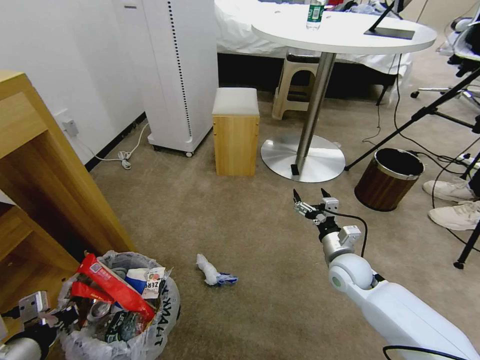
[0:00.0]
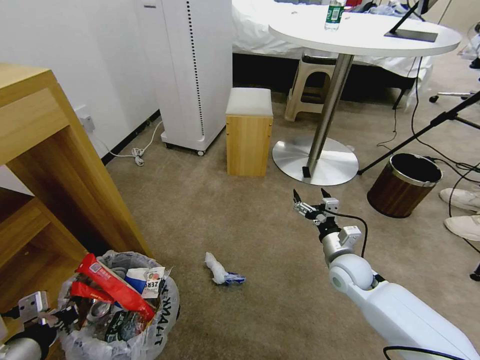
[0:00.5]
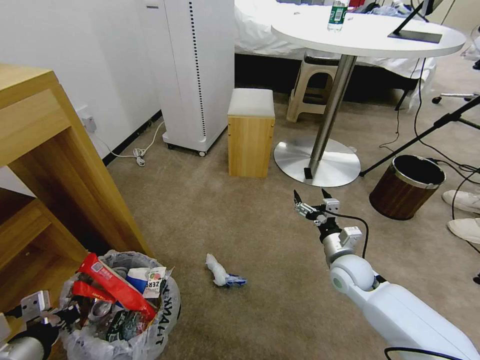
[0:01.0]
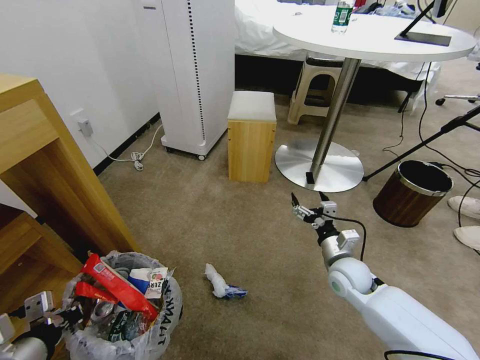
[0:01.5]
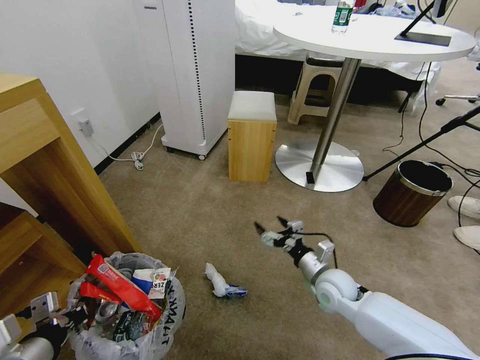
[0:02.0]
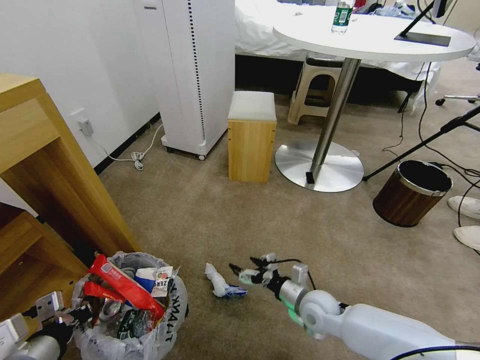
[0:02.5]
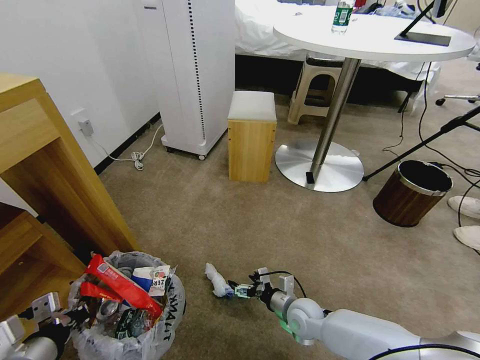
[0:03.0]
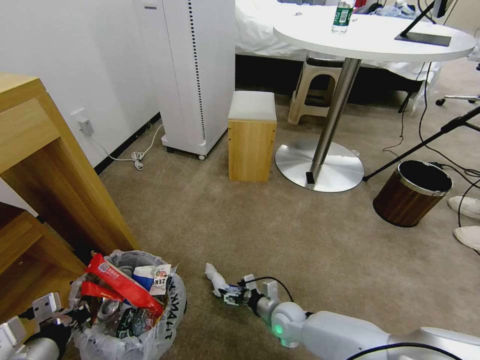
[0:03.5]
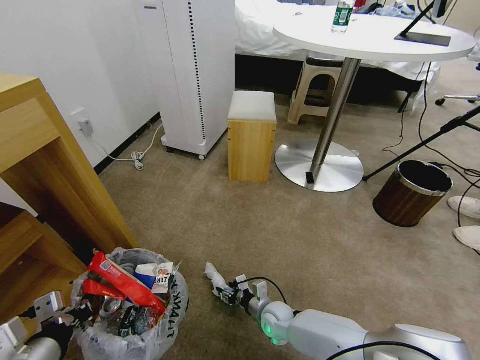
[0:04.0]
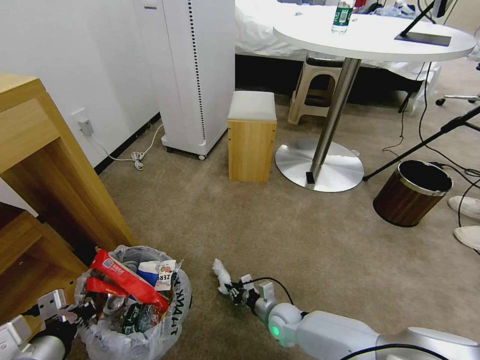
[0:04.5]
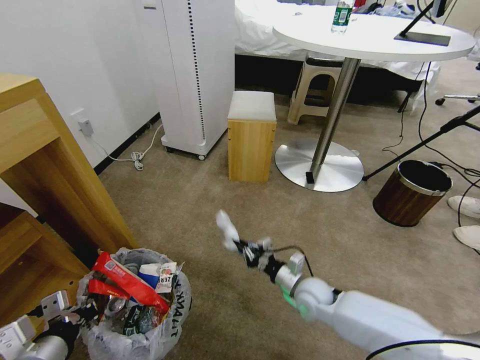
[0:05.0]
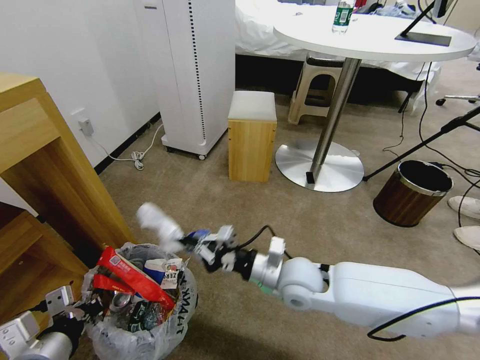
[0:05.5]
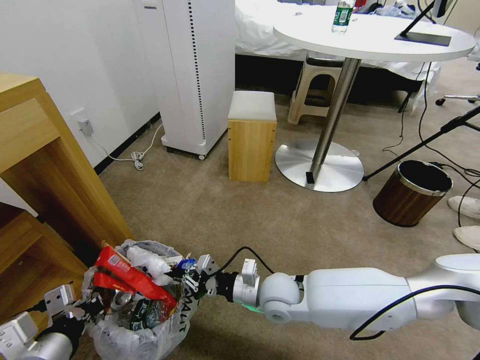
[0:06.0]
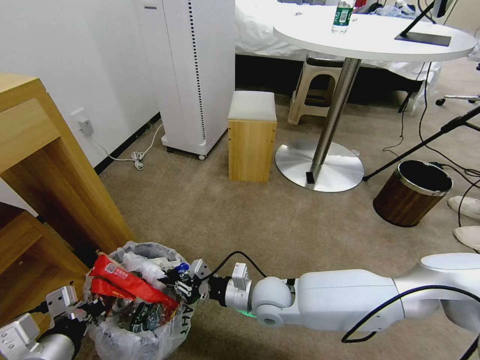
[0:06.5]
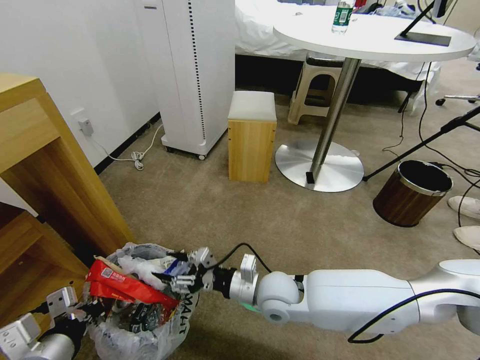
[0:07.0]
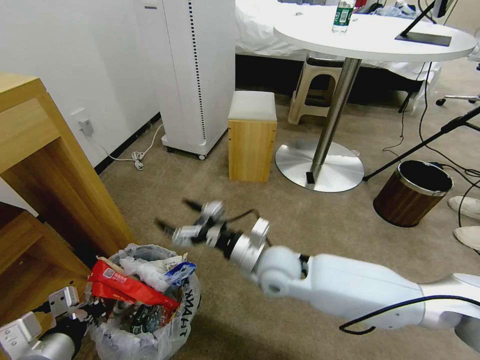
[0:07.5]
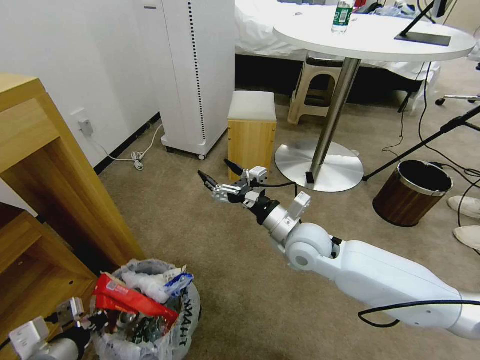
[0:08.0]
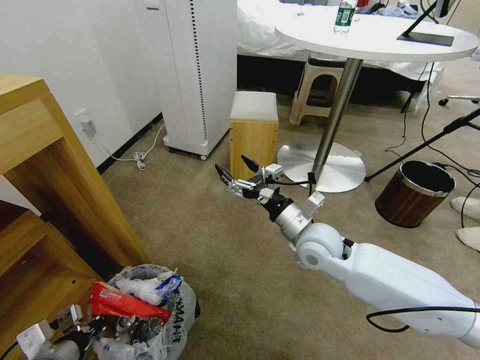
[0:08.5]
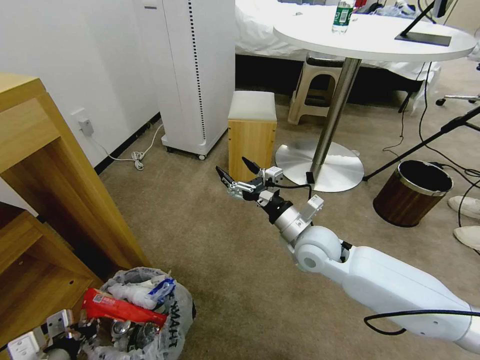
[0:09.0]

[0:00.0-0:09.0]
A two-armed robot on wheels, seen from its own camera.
Task of the whole recording: Pick up the trash bin and place the garbage on the floor into it.
0:00.0 to 0:02.0: The right gripper ends up about 5 cm from where it was.
0:02.0 to 0:04.5: The right gripper travels downward and to the left by roughly 20 cm, and closes up.
0:04.5 to 0:07.0: The right gripper shifts roughly 20 cm upward, and opens its fingers.
0:07.0 to 0:09.0: The left gripper goes about 5 cm downward, and opens, while the right gripper shifts approximately 15 cm to the right, upward and forward.

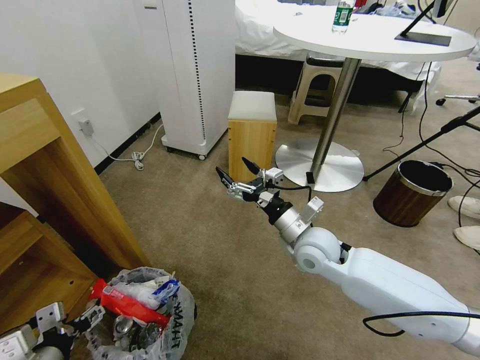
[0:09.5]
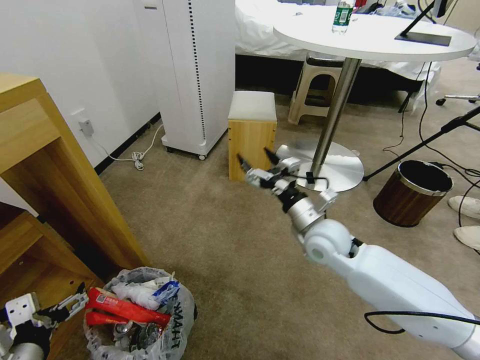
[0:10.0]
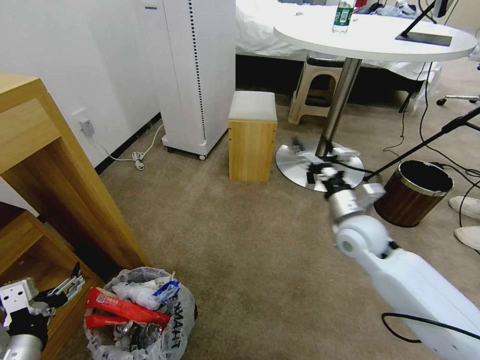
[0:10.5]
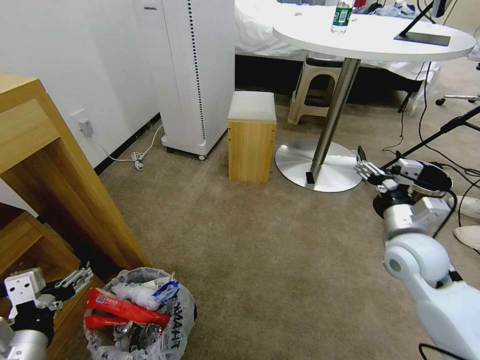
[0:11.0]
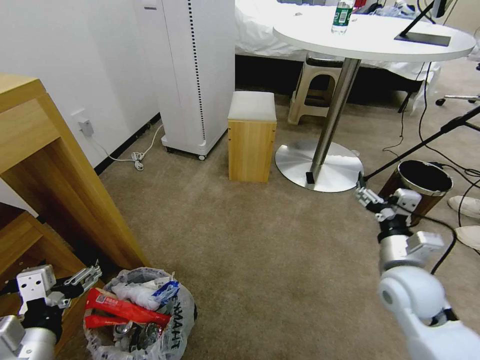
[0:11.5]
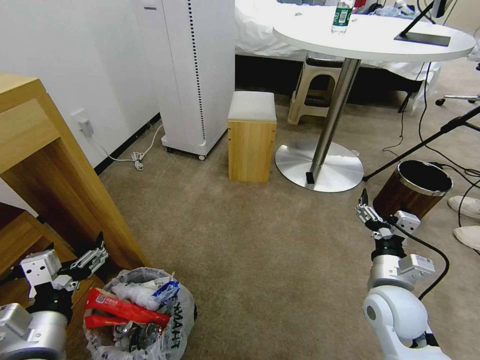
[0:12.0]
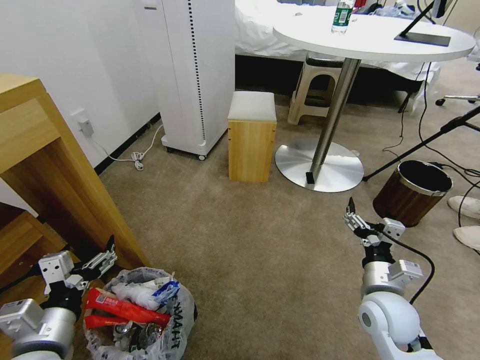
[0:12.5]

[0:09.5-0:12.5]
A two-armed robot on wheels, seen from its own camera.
Task of the whole recording: Pick up the trash bin and place the garbage on the floor into it.
0:09.5 to 0:11.0: The left gripper travels upward by roughly 5 cm; the right gripper moves to the right, about 15 cm.
0:11.0 to 0:12.5: The right gripper travels downward and backward by approximately 10 cm.
